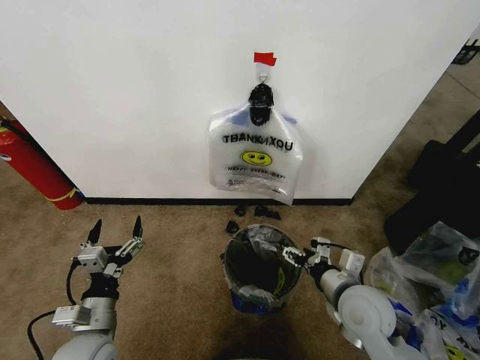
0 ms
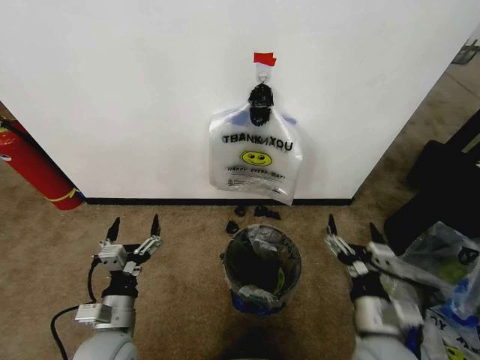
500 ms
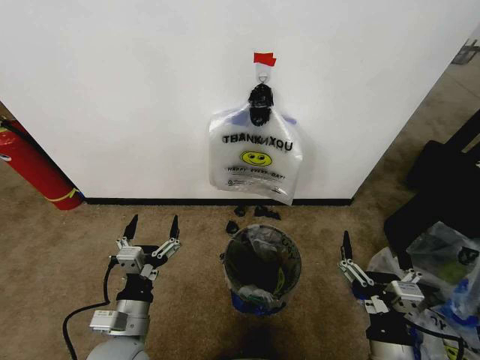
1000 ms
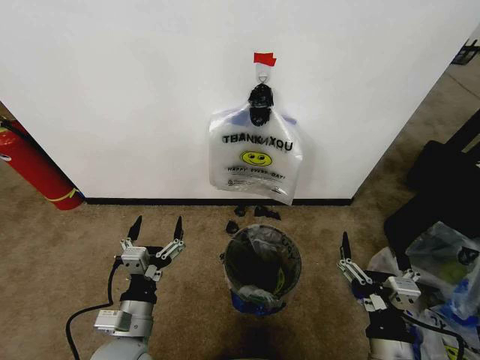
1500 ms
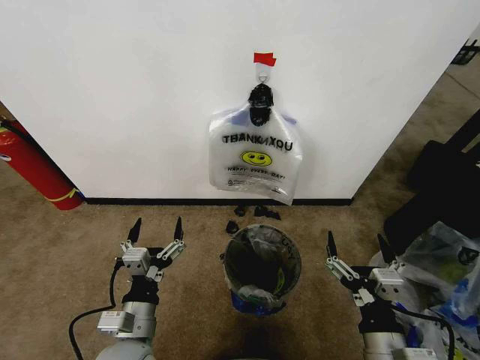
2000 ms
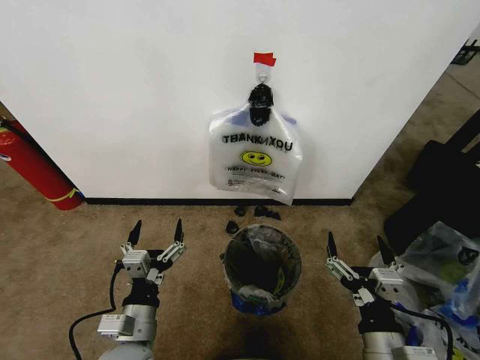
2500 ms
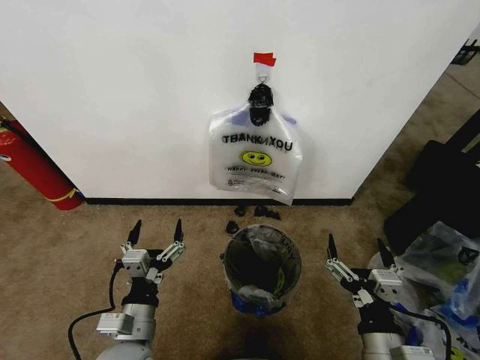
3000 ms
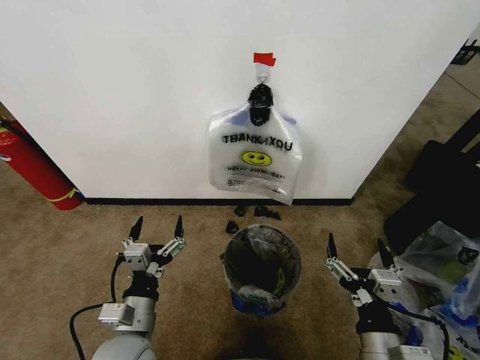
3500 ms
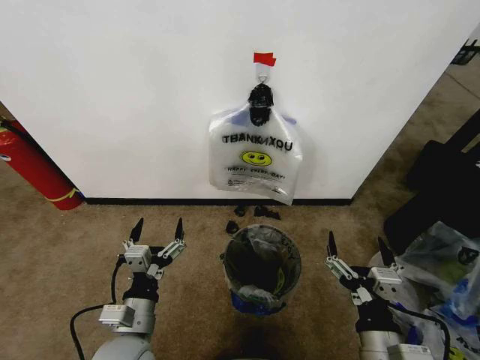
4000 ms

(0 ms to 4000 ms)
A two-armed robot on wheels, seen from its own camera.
Task of the whole recording: Pick up the garbage bag from the wall and place it over the trash bin.
0 ms - 2000 ms: The left gripper heads to the right, covering some 10 cm; the right gripper goes approximately 15 cm backward.
2000 ms - 4000 ms: The two grippers keep their place.

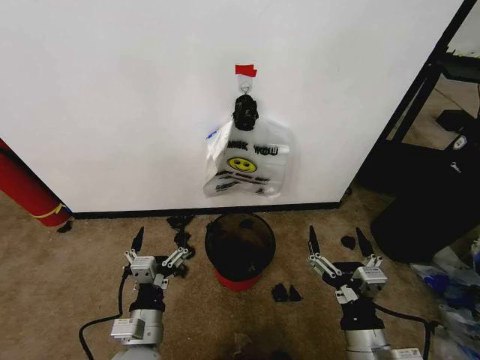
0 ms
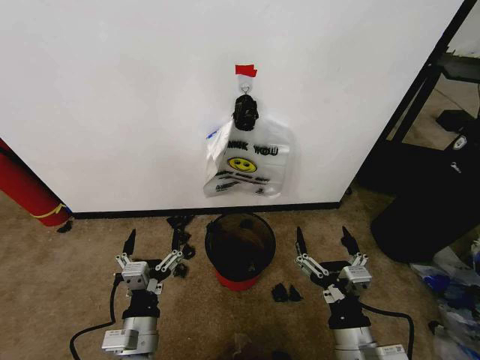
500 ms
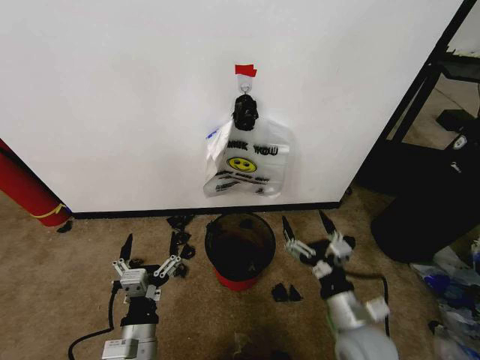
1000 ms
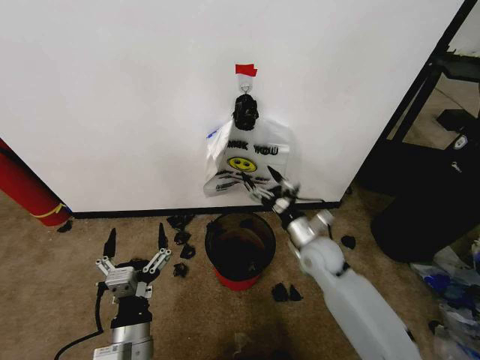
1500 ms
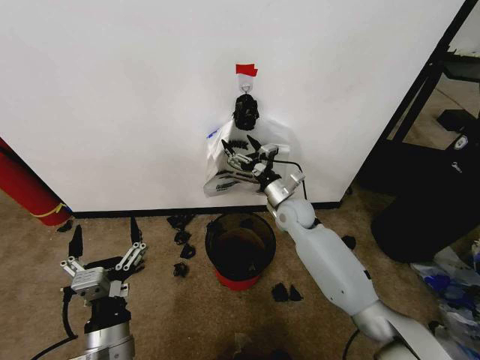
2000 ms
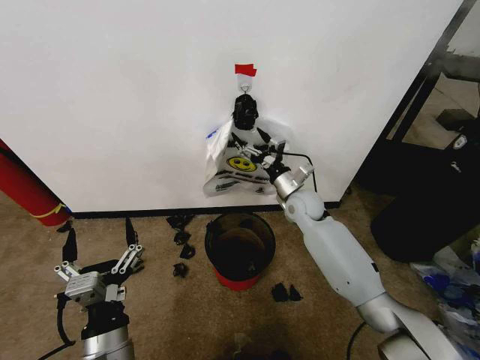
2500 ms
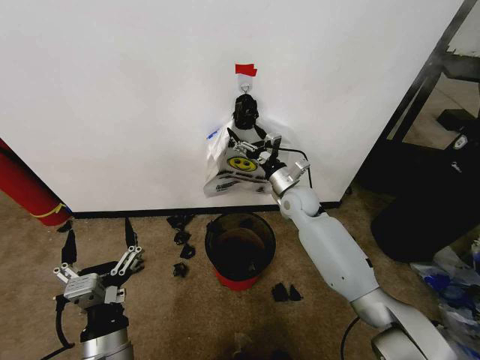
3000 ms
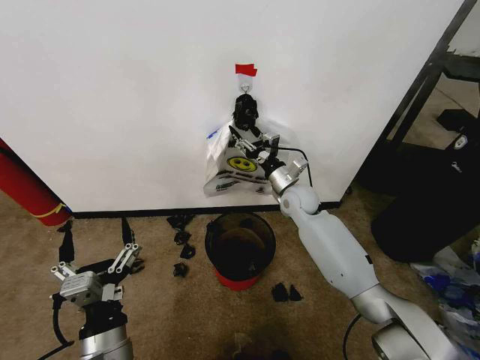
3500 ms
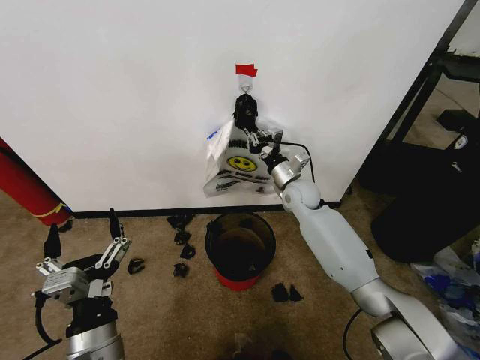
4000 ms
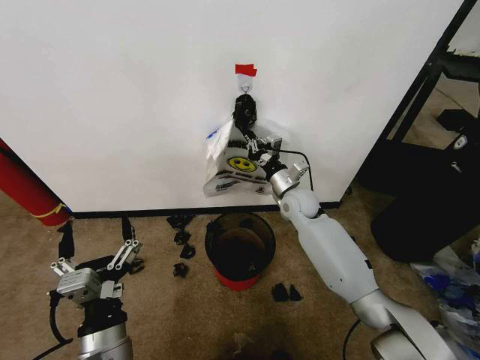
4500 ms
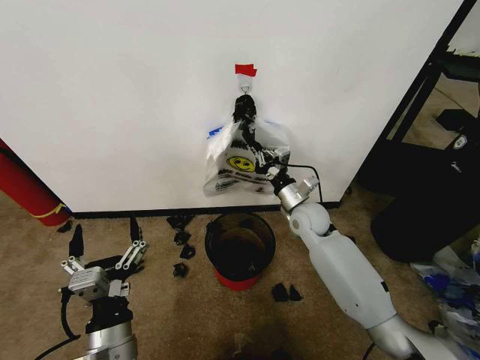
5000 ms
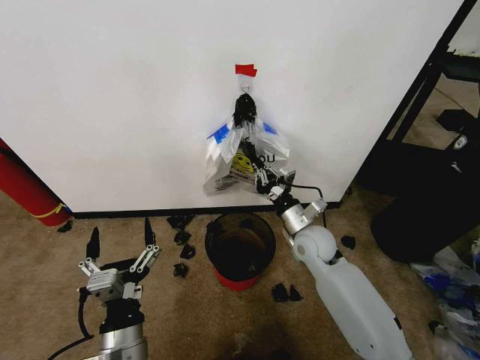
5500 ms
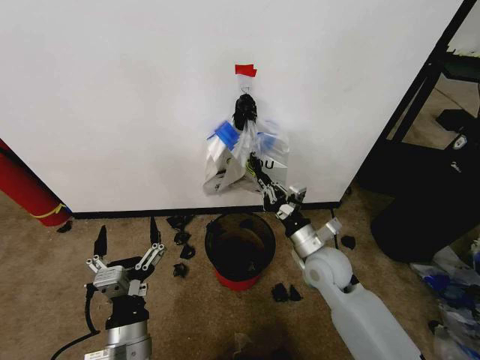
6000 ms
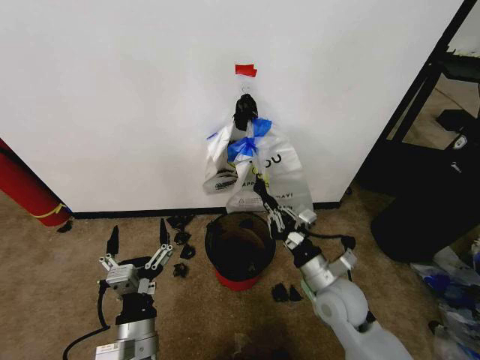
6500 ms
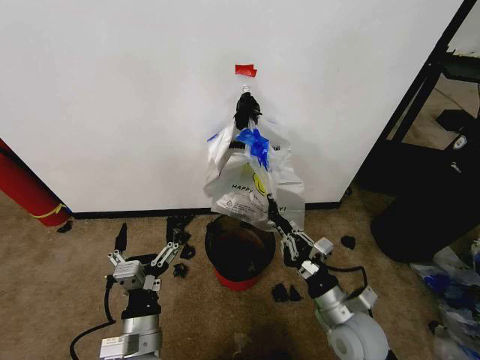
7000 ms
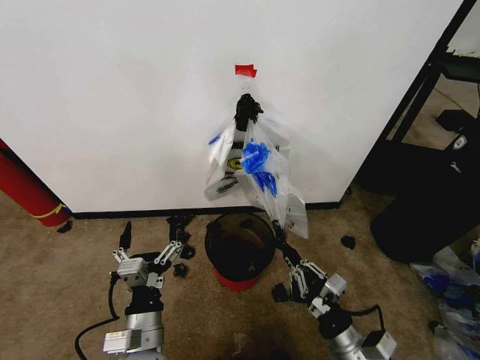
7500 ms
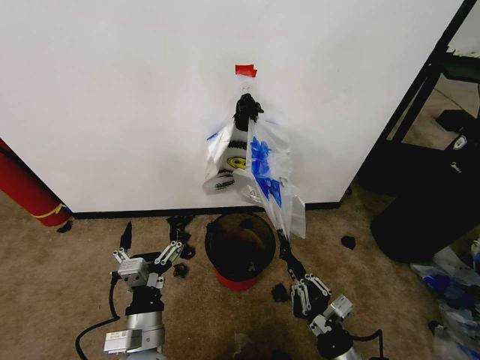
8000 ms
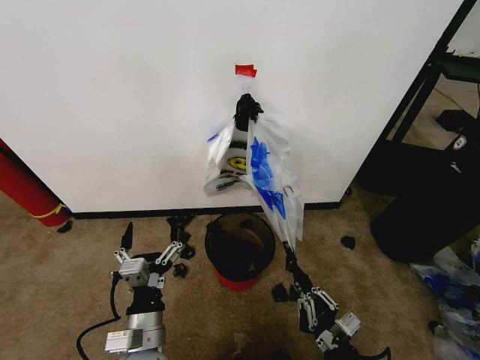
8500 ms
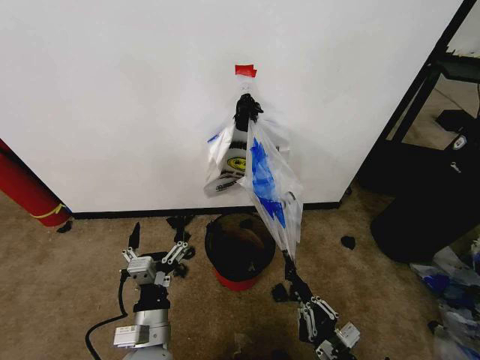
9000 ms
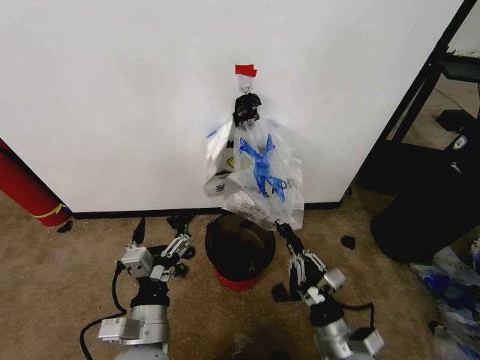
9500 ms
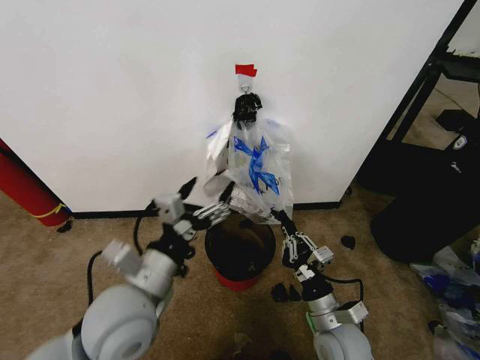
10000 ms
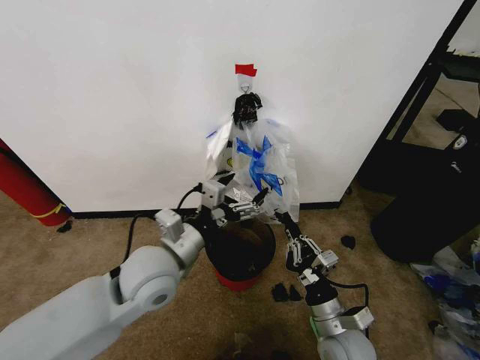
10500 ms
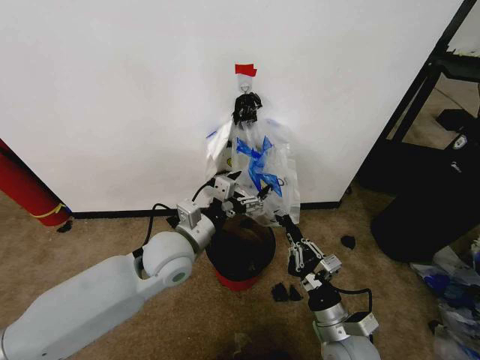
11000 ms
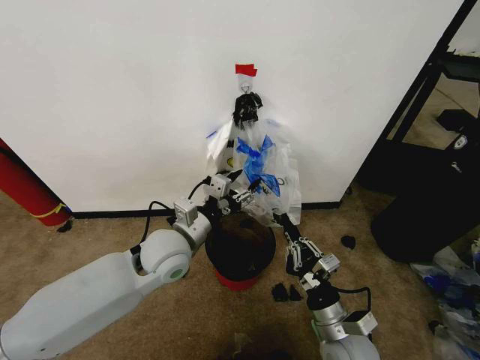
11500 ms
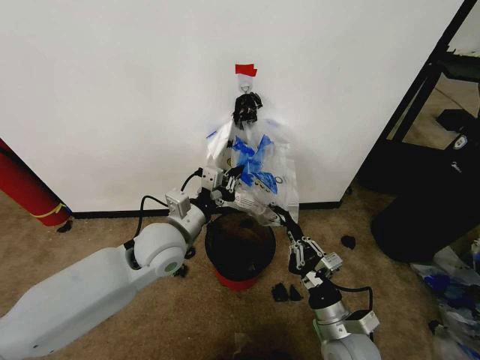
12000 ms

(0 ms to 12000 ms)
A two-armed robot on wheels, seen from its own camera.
Task of the whole recording: Pick up the garbage bag from the wall and place it over the trash bin.
2000 ms - 4000 ms: The right gripper moves approximately 5 cm, and closes up.
4000 ms - 6000 ms: The right gripper goes roughly 20 cm backward.
6000 ms - 8000 ms: The right gripper is displaced backward by about 20 cm.
8000 ms - 10000 ms: The left gripper heads upward and forward, covering some 15 cm. The right gripper goes roughly 10 cm forward.
10000 ms - 12000 ms: The left gripper moves forward, roughly 15 cm, and closes.

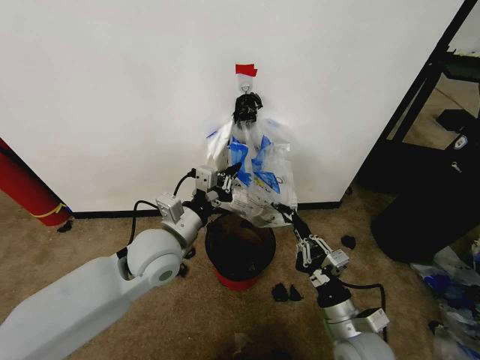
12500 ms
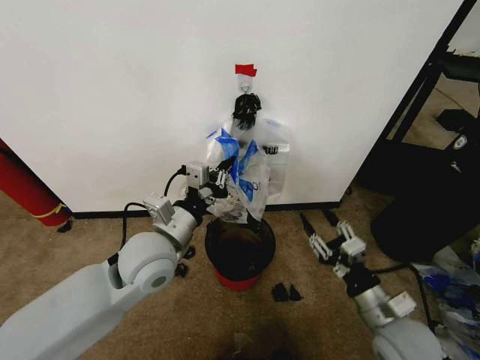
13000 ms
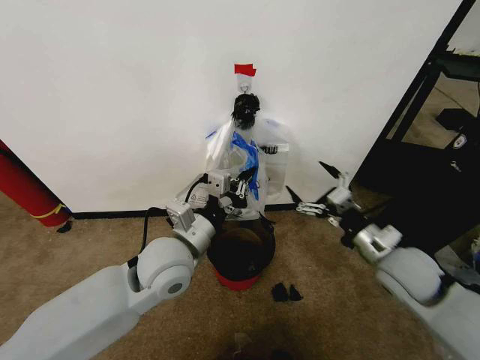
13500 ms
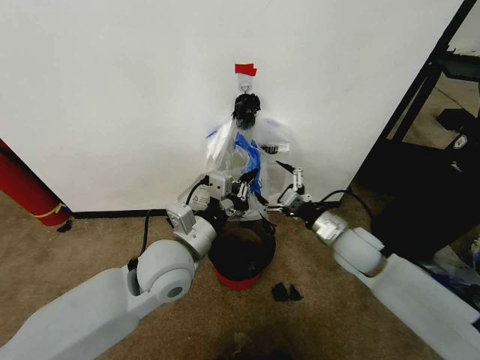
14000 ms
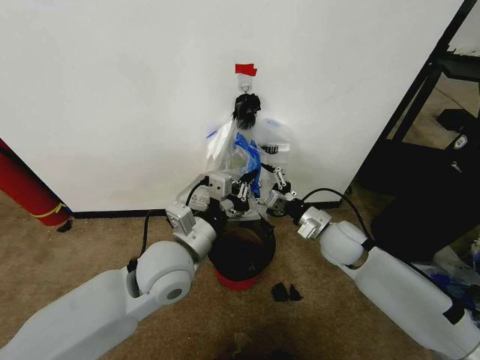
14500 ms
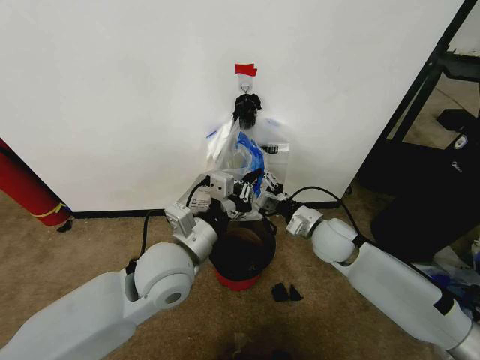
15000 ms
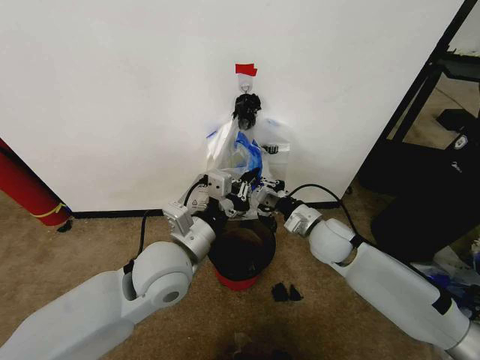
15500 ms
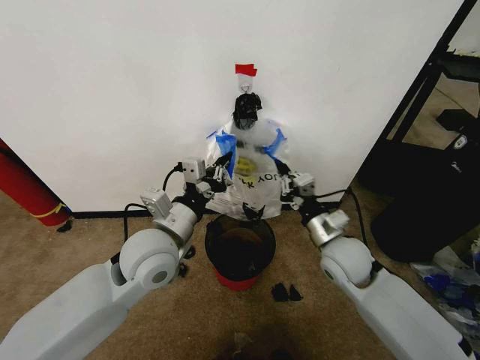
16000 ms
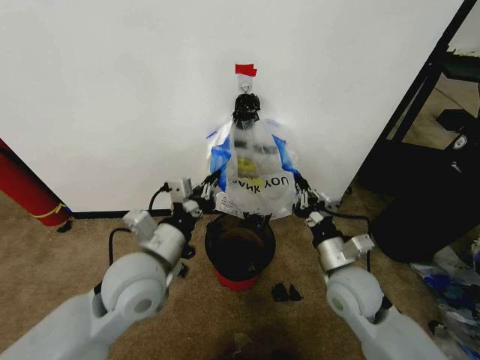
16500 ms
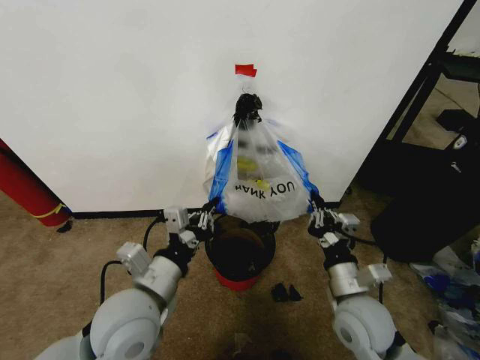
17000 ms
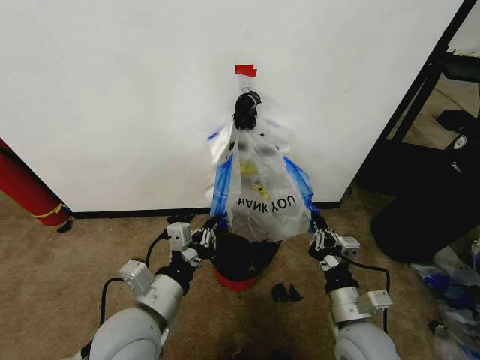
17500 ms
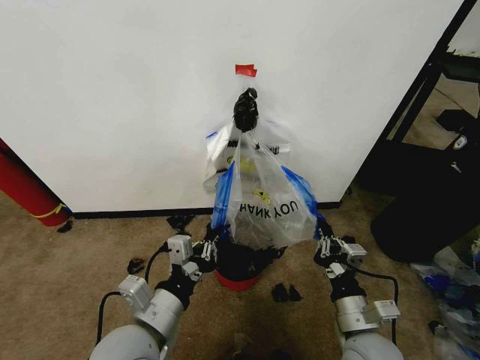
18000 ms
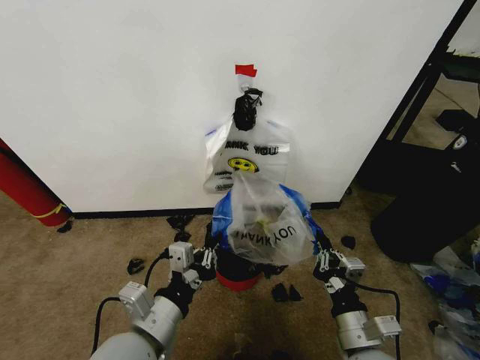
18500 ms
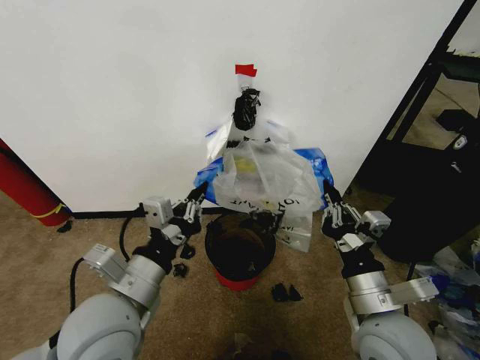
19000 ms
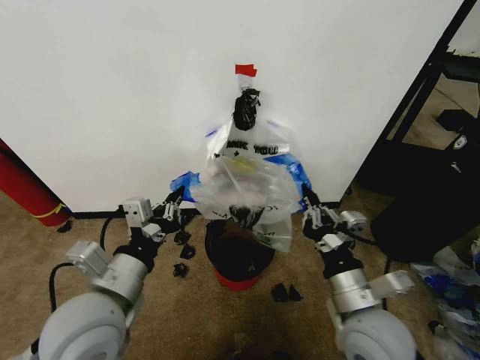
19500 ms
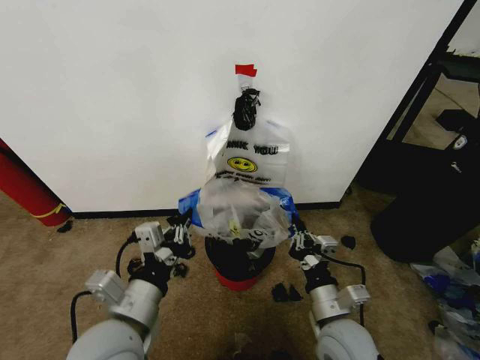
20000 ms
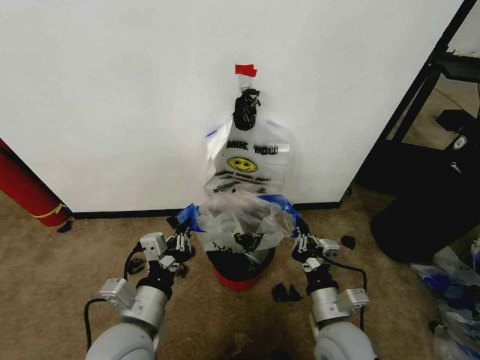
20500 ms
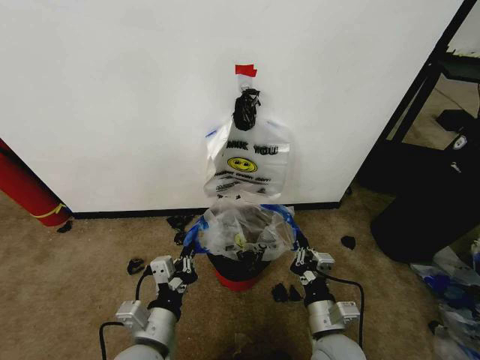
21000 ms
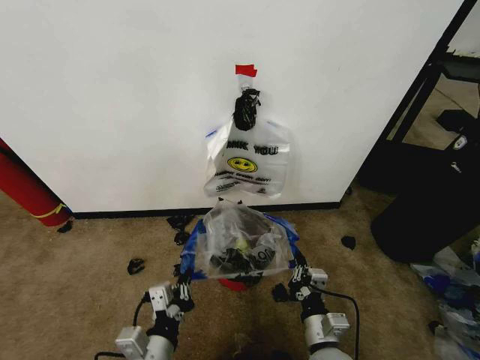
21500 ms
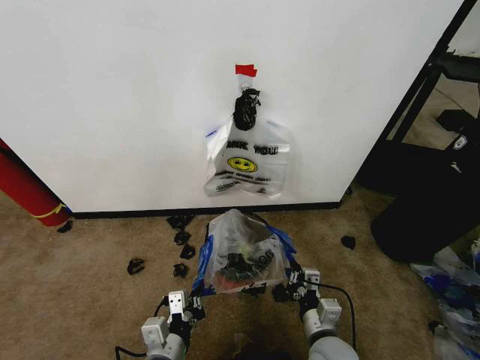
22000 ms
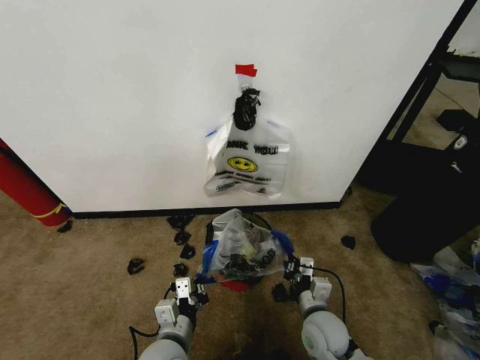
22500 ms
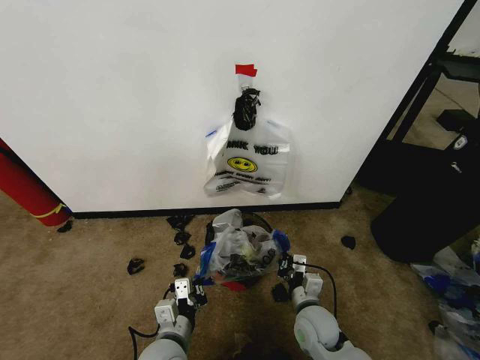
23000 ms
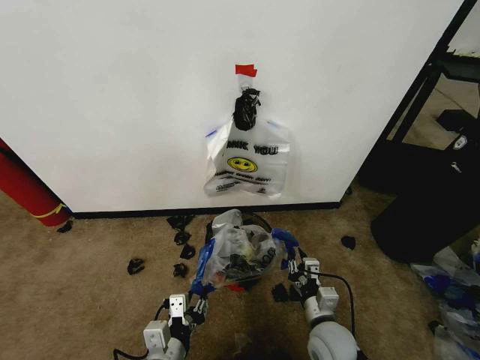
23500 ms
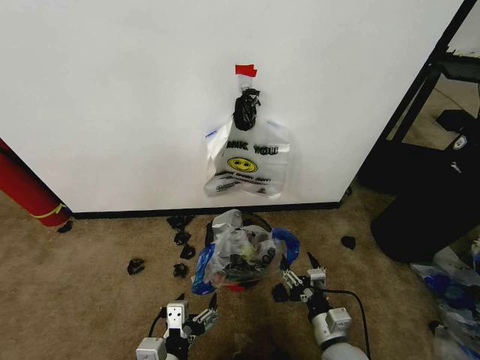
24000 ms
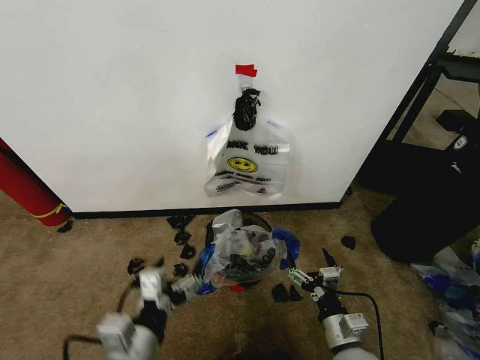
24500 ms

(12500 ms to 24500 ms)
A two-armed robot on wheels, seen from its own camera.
Task of the whole recording: Pick up the garbage bag from the wall and place it over the trash bin.
12500 ms - 14500 ms: The right gripper moves forward, approximately 20 cm, and opens up.
14500 ms - 16500 ms: The left gripper shifts by about 5 cm, while the right gripper is displaced backward by some 10 cm, and closes up.
16500 ms - 18500 ms: The grippers both shift backward by approximately 10 cm.
18500 ms - 20500 ms: The left gripper travels upward and back again, about 5 cm each way; the right gripper moves approximately 10 cm upward and comes back.
20500 ms - 22500 ms: The grippers both shift downward by some 10 cm.
22500 ms - 24500 ms: The right gripper moves backward, roughly 5 cm, and opens its fingers. The left gripper goes some 15 cm upward and backward, and opens.
